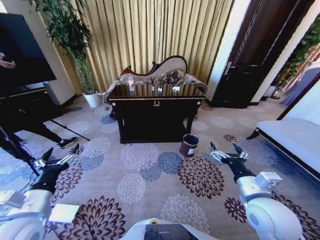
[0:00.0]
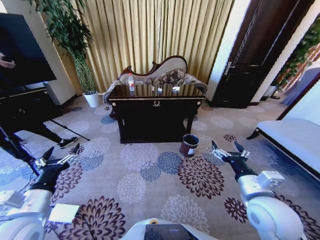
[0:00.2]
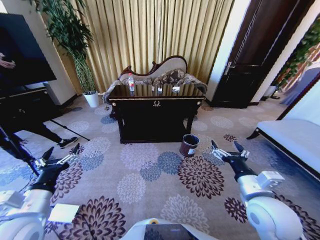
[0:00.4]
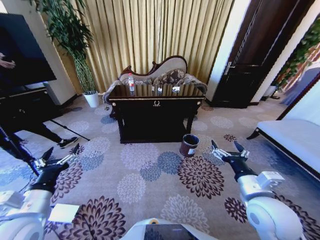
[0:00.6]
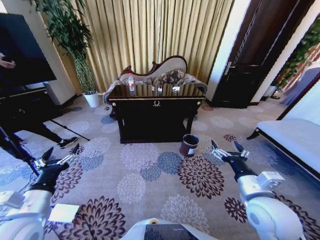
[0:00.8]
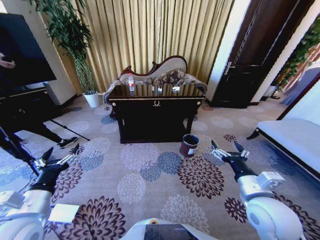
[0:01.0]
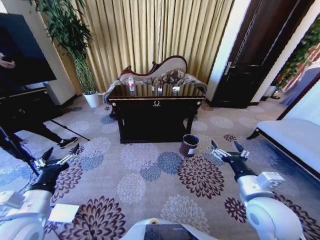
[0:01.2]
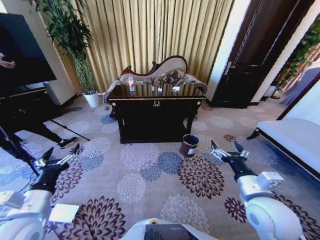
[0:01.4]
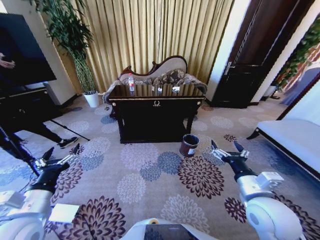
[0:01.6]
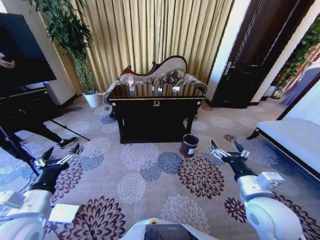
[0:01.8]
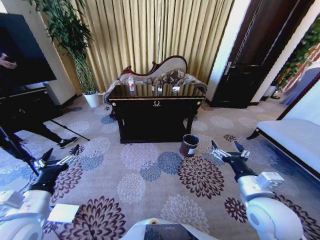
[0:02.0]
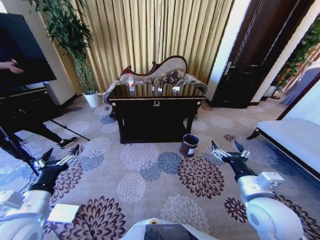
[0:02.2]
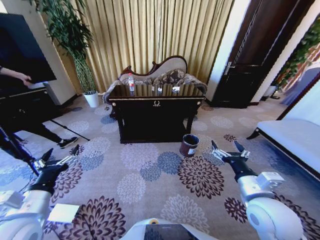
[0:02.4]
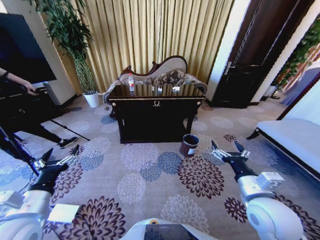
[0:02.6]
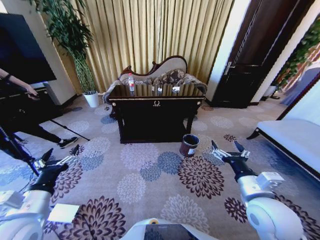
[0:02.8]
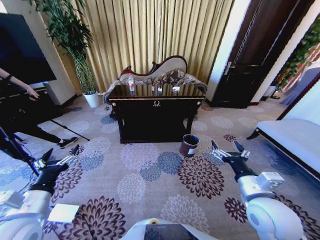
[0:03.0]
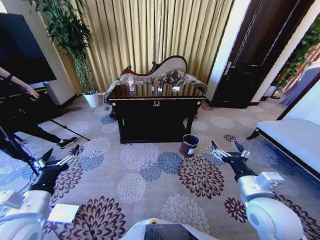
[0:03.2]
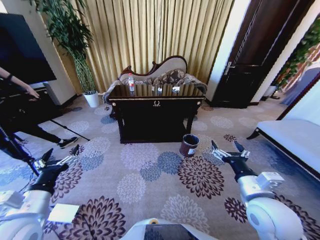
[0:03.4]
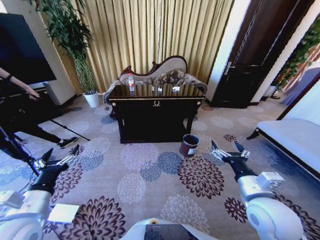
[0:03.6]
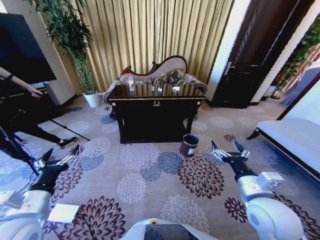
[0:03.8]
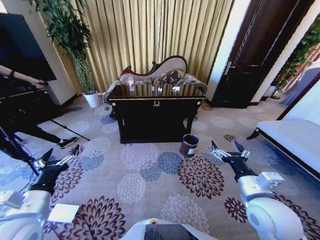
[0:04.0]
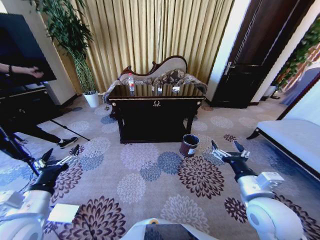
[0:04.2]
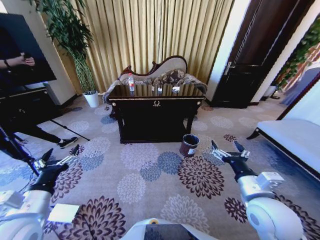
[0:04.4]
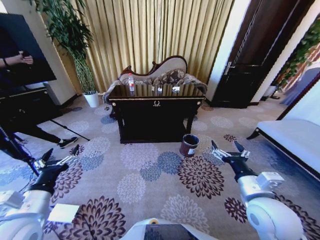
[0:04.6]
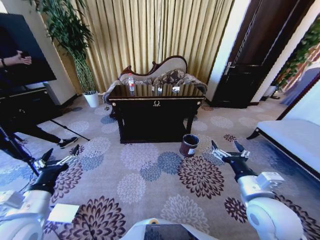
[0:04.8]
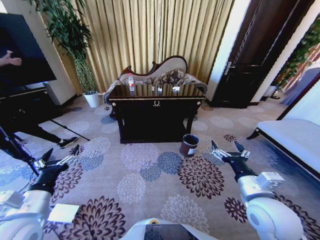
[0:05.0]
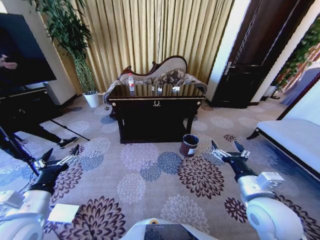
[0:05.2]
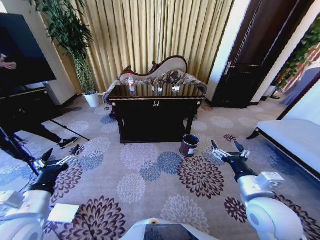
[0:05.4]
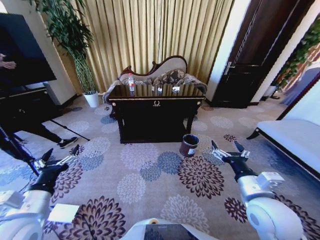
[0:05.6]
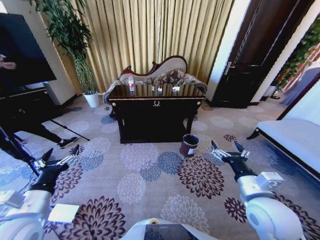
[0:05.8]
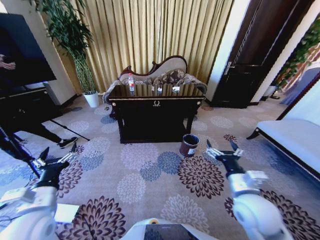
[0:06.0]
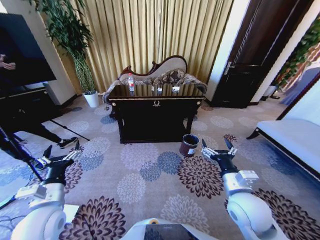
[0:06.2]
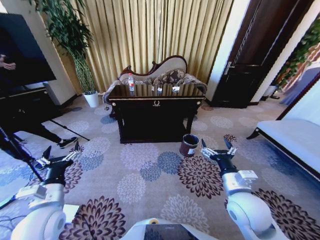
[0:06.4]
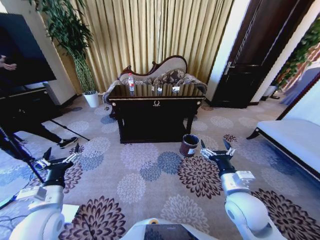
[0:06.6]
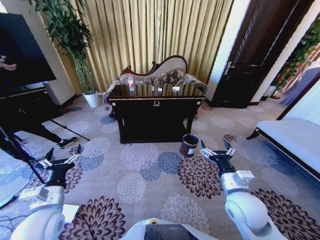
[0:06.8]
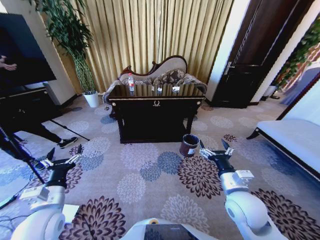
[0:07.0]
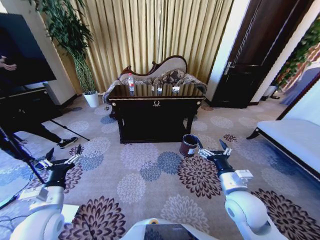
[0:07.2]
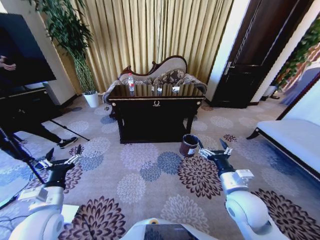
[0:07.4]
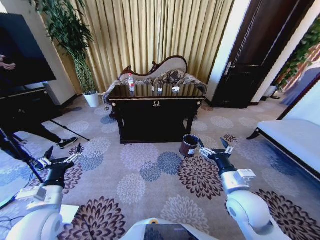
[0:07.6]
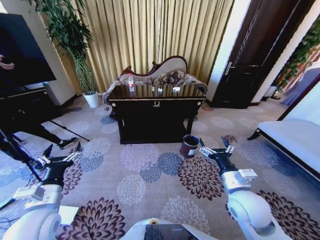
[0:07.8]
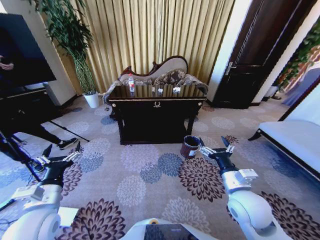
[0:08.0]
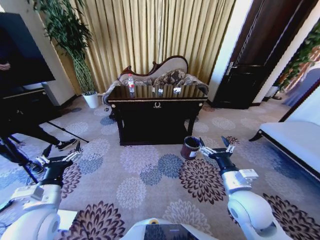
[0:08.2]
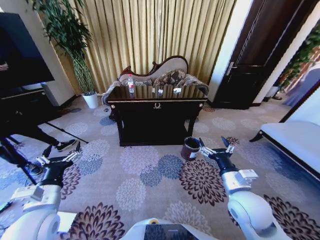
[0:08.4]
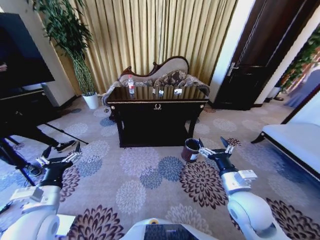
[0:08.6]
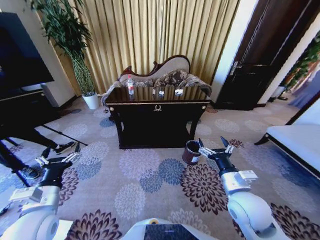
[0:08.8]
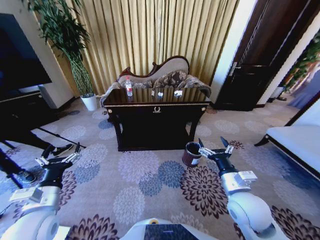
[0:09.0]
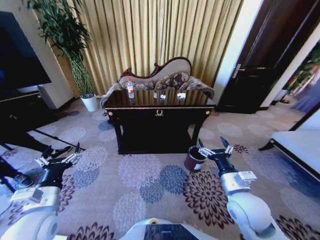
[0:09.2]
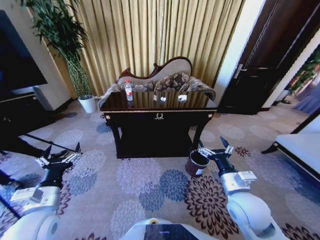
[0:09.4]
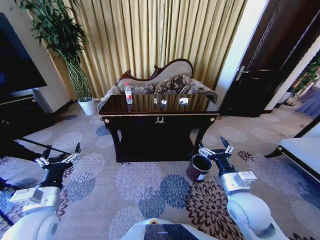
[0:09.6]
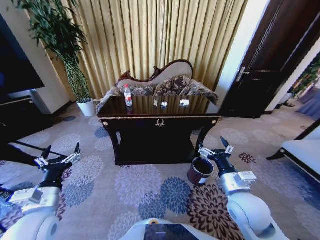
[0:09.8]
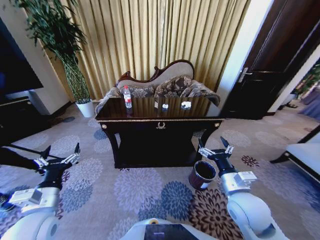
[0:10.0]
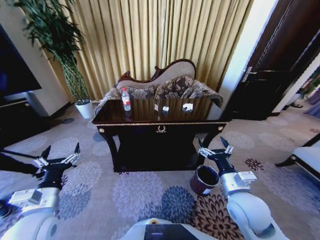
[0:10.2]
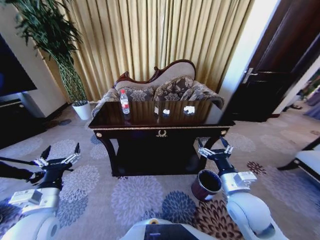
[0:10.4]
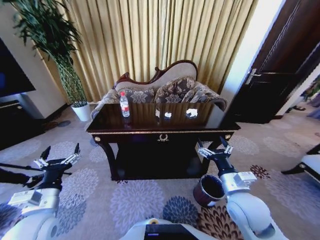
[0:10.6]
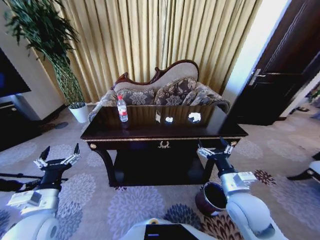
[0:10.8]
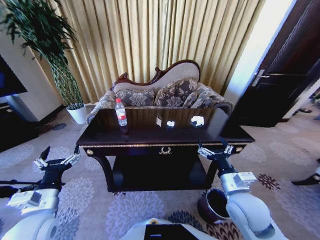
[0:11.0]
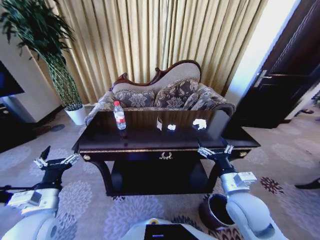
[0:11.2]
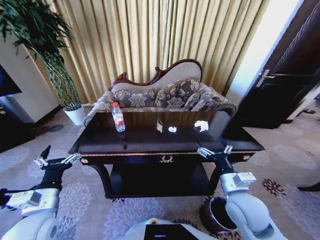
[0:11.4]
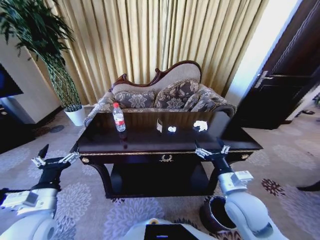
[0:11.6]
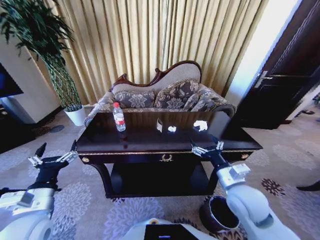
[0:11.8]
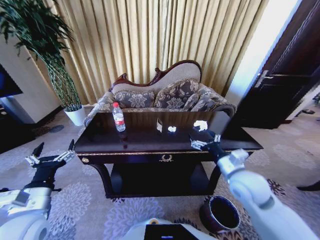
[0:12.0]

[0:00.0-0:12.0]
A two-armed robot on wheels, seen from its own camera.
Task of the whole recording: Move to the front of the table and place the trash on the table into the trash bin.
0:01.6 to 0:04.4: Neither gripper changes place.
0:04.4 to 0:07.6: The grippers make only small movements.
0:10.4 to 0:12.0: The right gripper moves forward, roughly 5 cm.

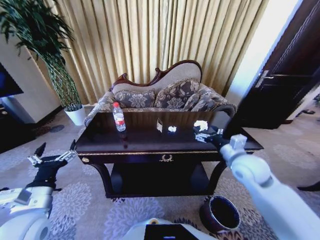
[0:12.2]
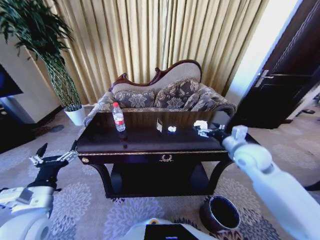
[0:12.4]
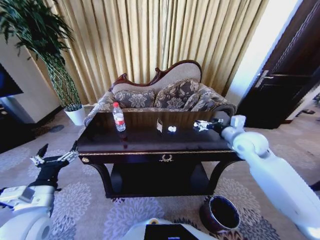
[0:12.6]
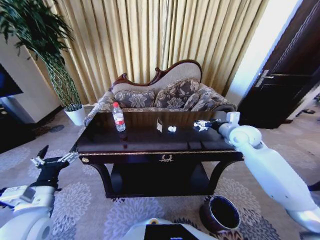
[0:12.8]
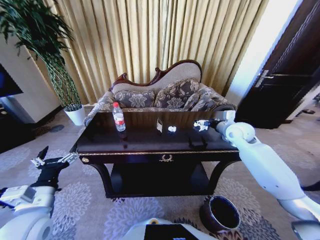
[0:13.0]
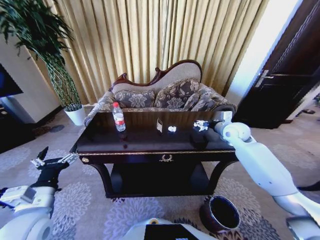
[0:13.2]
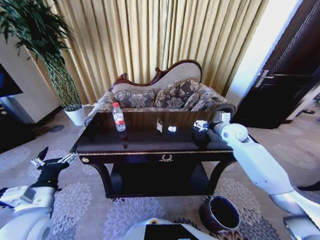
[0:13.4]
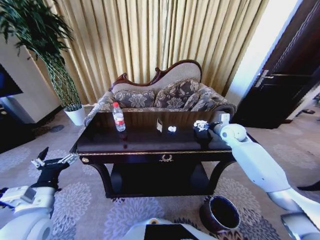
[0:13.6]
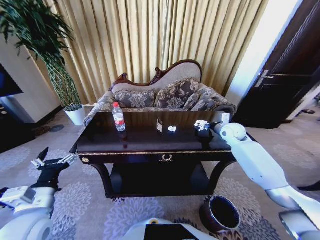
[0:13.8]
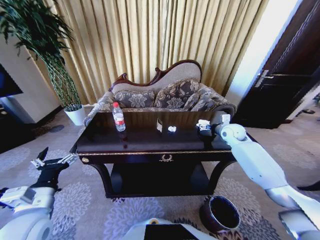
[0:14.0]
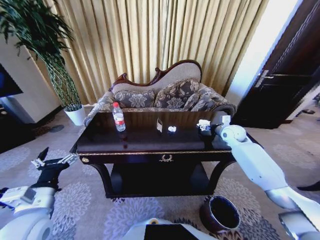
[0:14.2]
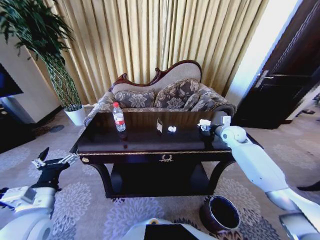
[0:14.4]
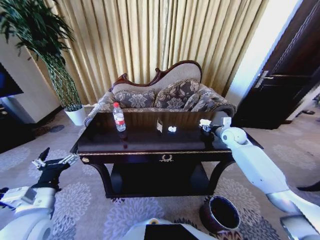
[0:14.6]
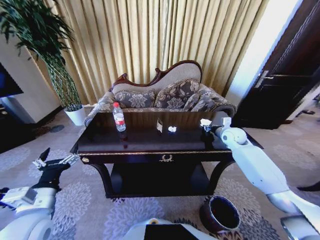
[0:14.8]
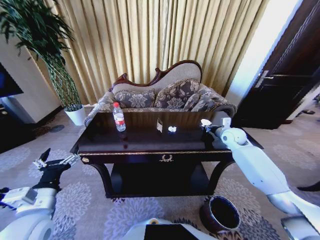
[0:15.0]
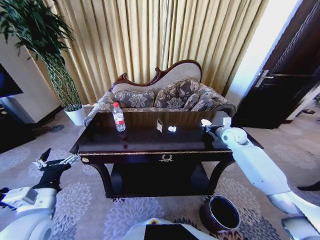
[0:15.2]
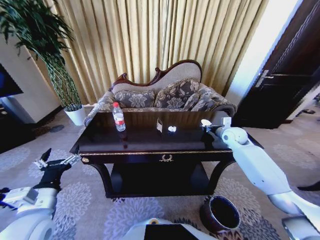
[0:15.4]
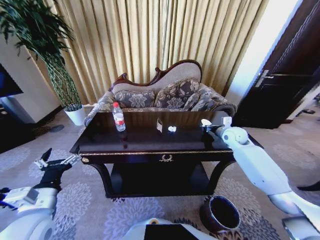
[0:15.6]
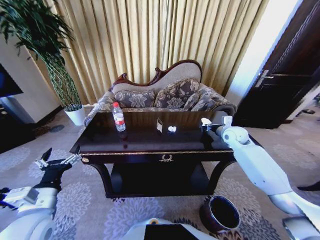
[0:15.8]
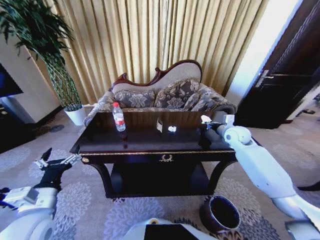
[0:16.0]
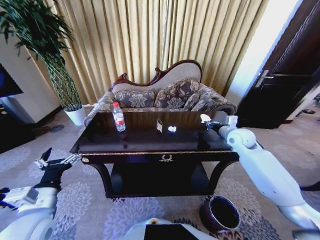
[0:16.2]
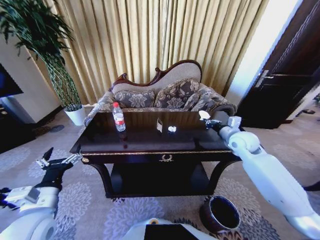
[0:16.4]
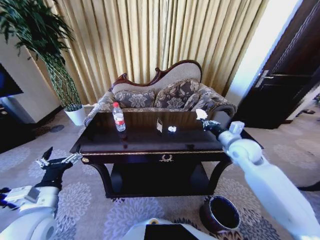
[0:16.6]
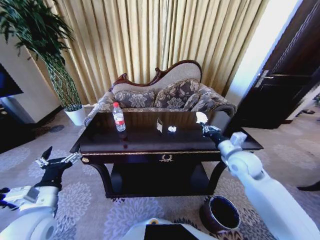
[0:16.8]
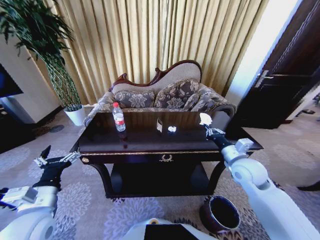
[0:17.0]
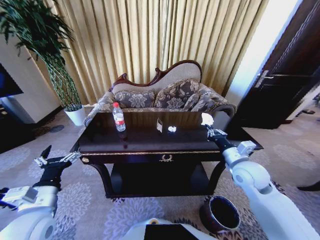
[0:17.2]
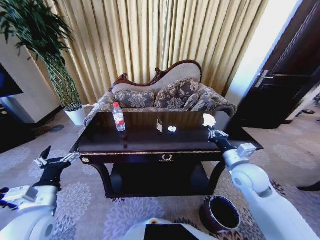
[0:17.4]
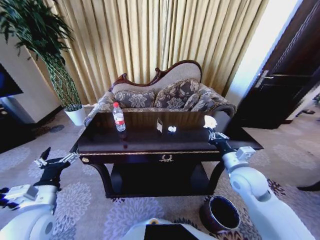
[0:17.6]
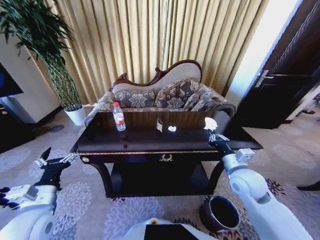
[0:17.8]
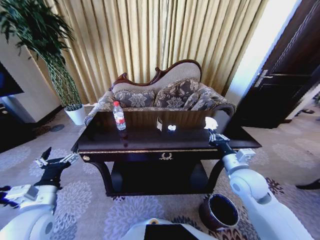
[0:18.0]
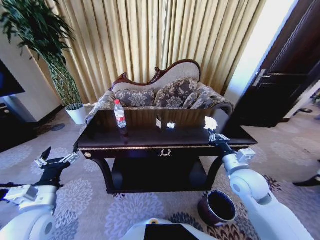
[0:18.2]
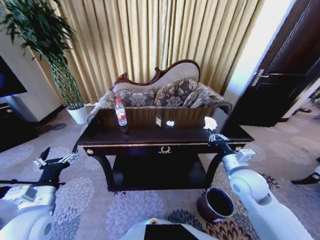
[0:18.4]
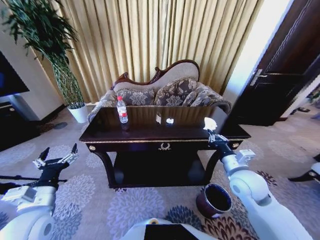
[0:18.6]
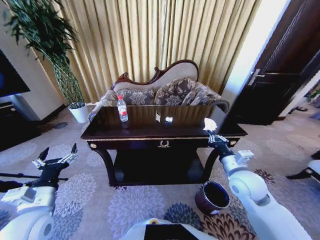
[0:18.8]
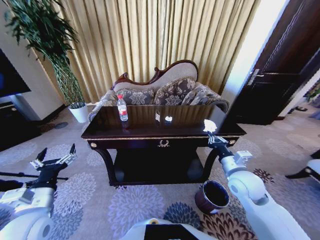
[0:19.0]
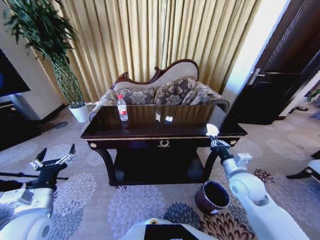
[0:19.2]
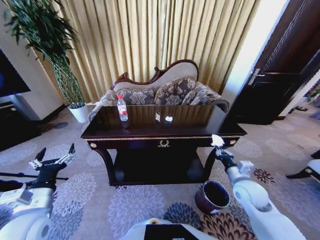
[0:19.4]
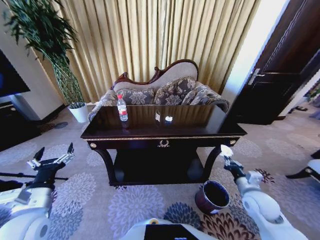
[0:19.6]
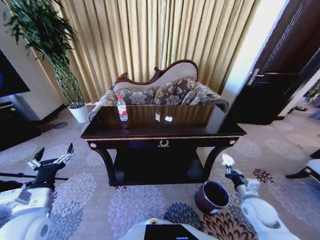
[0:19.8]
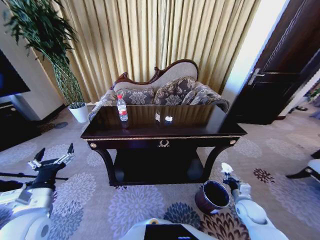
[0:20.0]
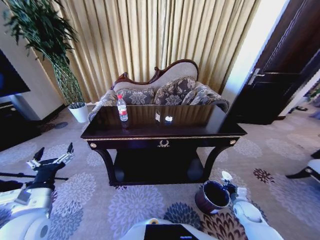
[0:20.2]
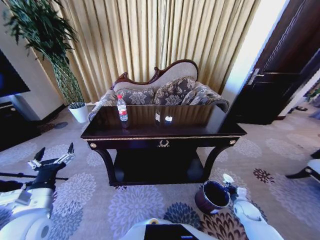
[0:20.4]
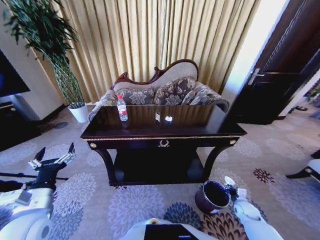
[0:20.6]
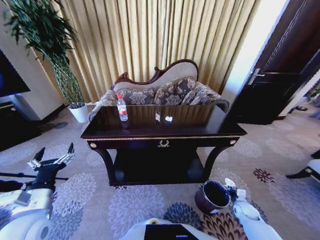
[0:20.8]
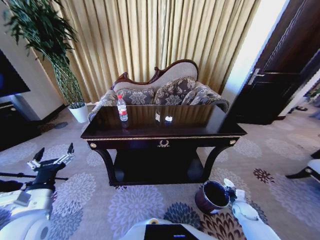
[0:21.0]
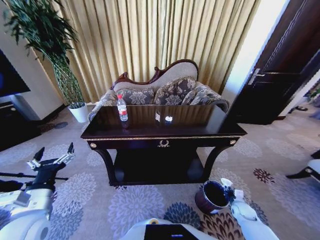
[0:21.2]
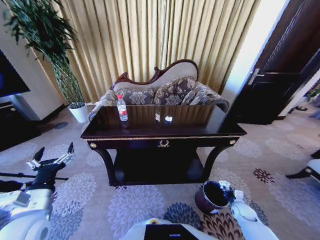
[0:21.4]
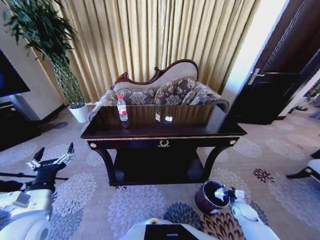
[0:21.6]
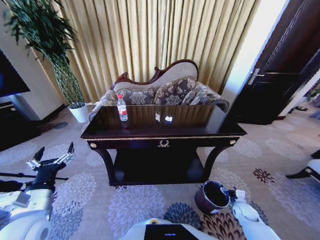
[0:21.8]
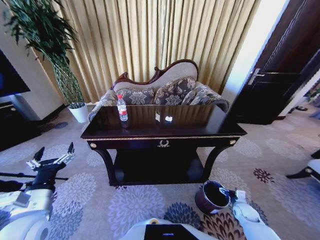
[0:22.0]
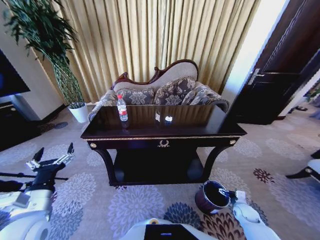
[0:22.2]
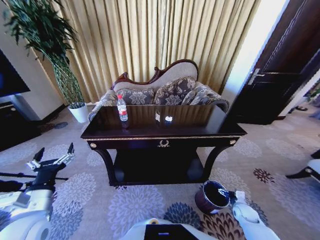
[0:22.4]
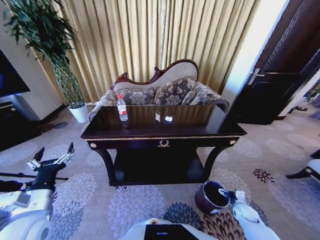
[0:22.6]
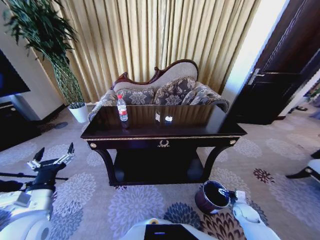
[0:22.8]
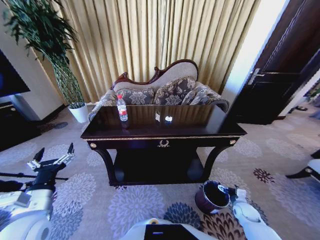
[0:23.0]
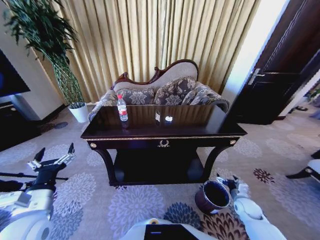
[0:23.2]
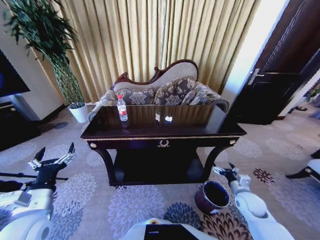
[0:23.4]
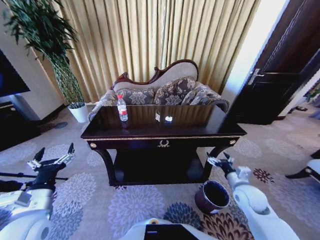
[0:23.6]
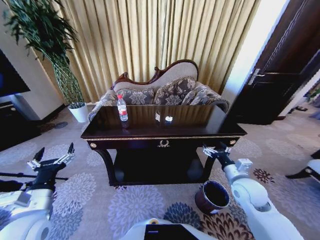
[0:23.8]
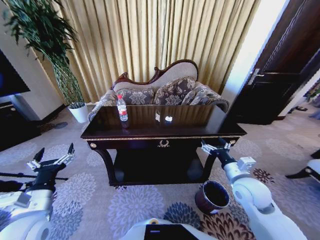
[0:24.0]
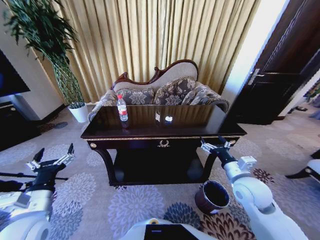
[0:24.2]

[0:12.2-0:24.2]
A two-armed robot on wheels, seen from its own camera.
Task of the whole recording: Move to the front of the table and place the trash on the table into the trash bin.
0:12.2 to 0:13.8: The right gripper goes about 20 cm forward.
0:13.8 to 0:15.2: The right gripper closes up.
0:15.2 to 0:16.6: The right gripper shifts roughly 10 cm backward.
0:16.6 to 0:18.2: The right gripper is displaced backward by approximately 10 cm.
0:18.2 to 0:19.8: The right gripper heads downward and to the right, covering approximately 20 cm.
0:19.8 to 0:21.2: The right gripper moves downward, some 15 cm.
0:21.2 to 0:22.6: The right gripper opens.
0:22.6 to 0:24.2: The right gripper goes some 30 cm upward and to the left.
